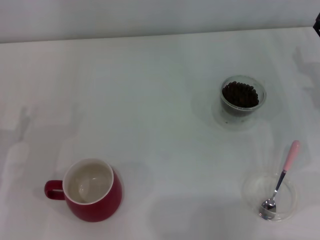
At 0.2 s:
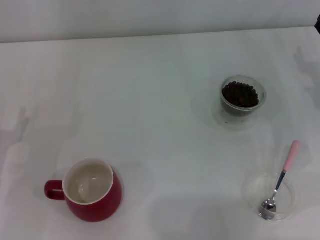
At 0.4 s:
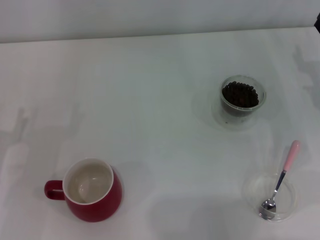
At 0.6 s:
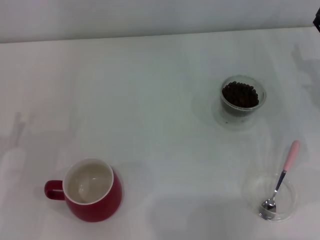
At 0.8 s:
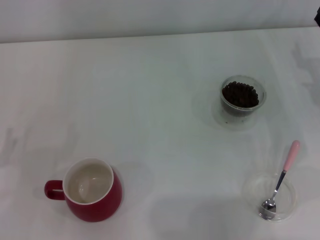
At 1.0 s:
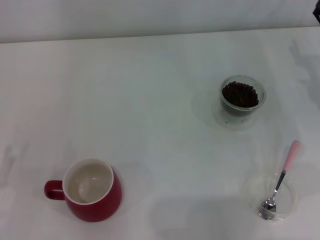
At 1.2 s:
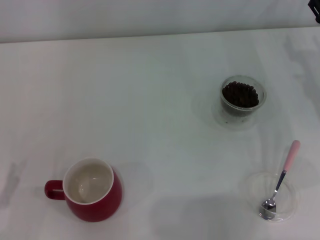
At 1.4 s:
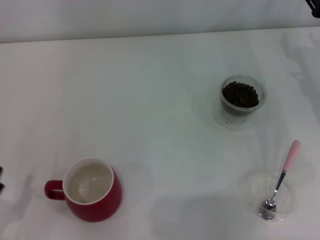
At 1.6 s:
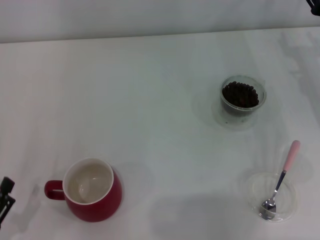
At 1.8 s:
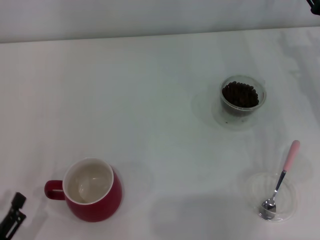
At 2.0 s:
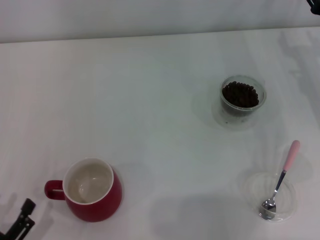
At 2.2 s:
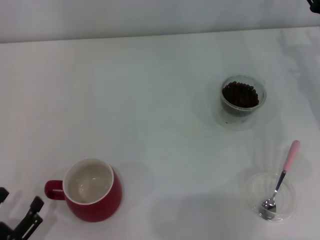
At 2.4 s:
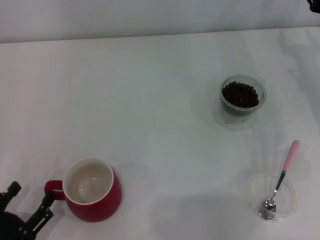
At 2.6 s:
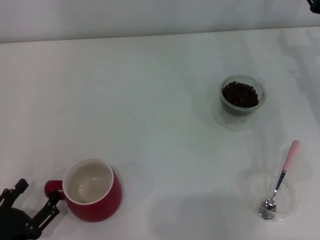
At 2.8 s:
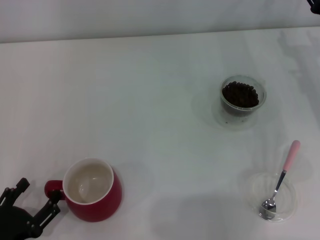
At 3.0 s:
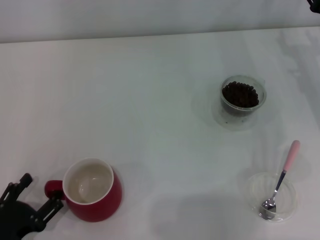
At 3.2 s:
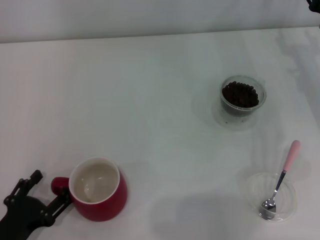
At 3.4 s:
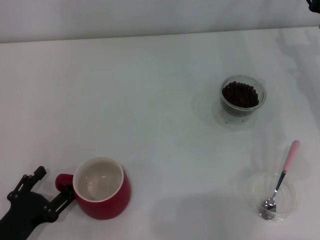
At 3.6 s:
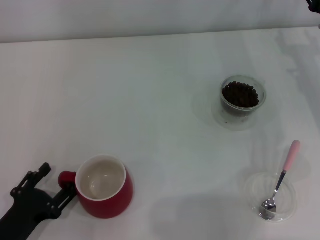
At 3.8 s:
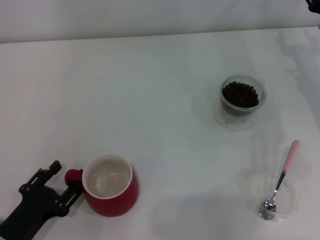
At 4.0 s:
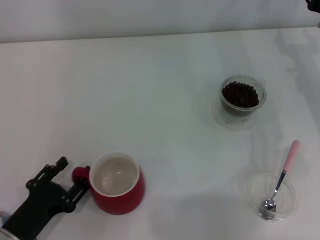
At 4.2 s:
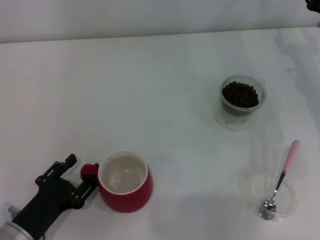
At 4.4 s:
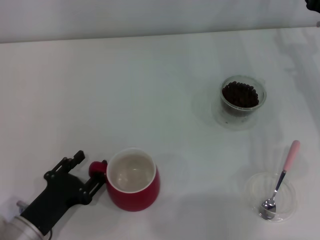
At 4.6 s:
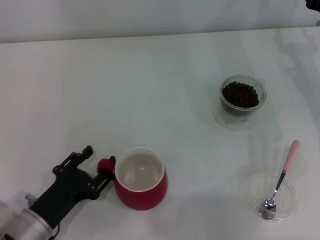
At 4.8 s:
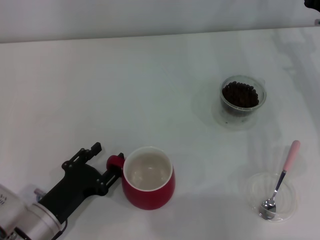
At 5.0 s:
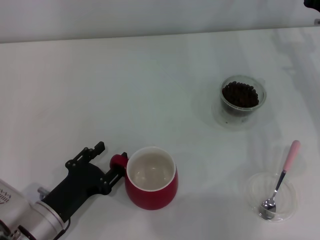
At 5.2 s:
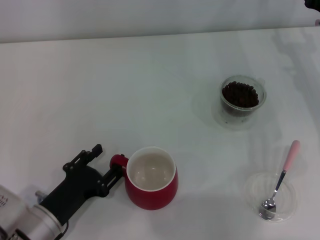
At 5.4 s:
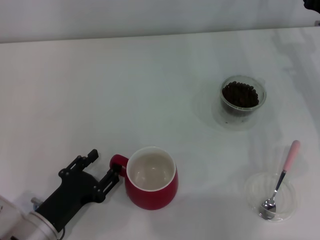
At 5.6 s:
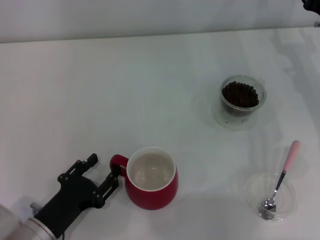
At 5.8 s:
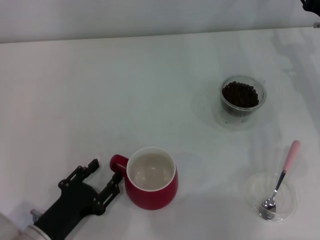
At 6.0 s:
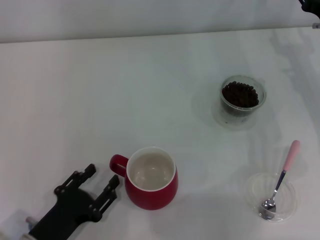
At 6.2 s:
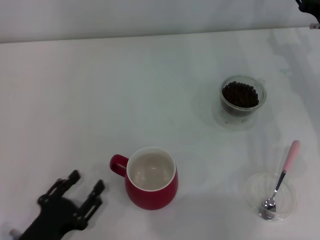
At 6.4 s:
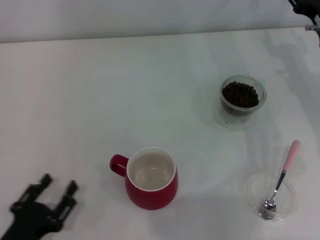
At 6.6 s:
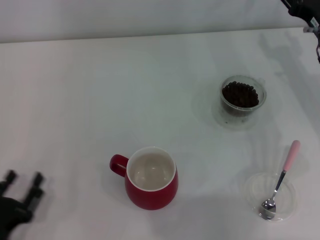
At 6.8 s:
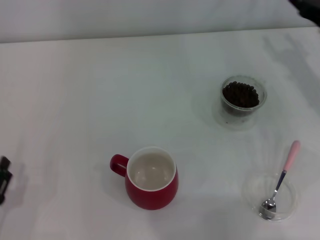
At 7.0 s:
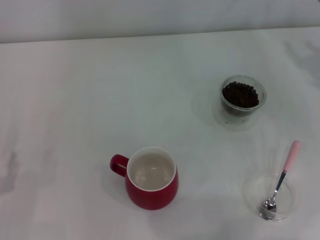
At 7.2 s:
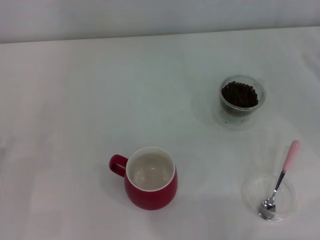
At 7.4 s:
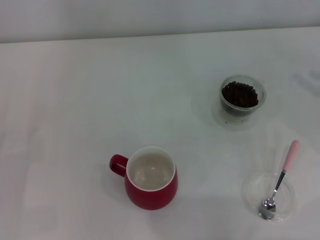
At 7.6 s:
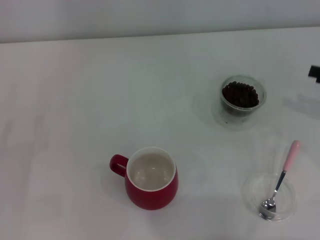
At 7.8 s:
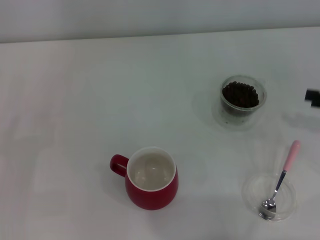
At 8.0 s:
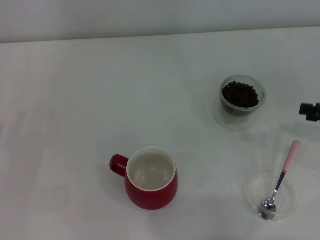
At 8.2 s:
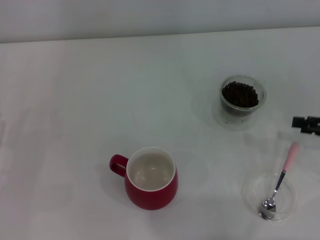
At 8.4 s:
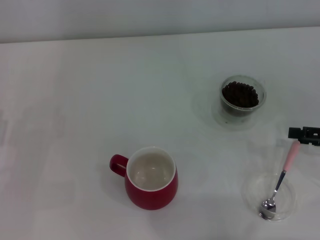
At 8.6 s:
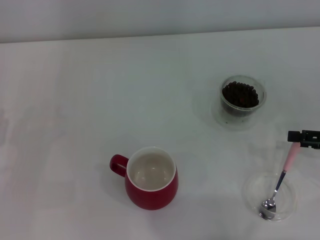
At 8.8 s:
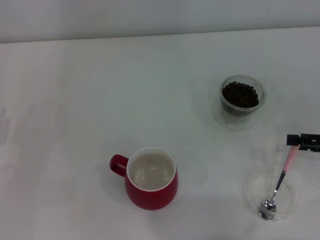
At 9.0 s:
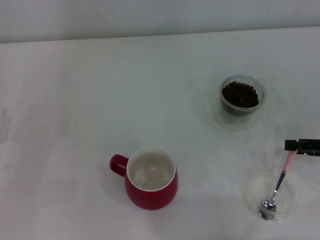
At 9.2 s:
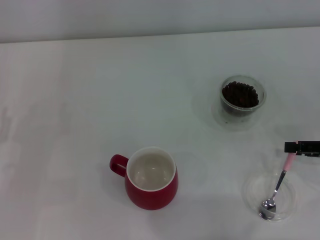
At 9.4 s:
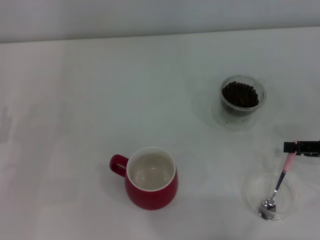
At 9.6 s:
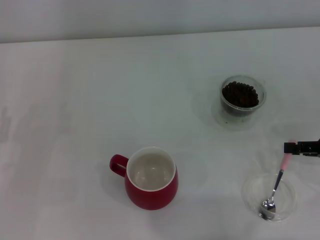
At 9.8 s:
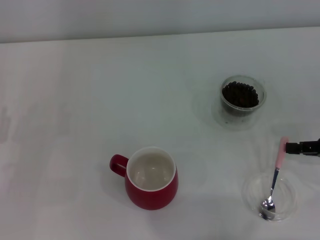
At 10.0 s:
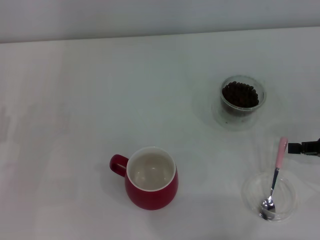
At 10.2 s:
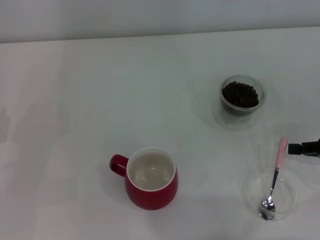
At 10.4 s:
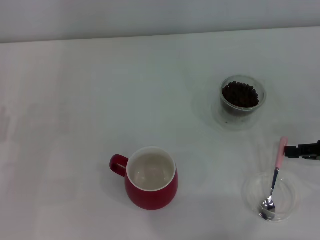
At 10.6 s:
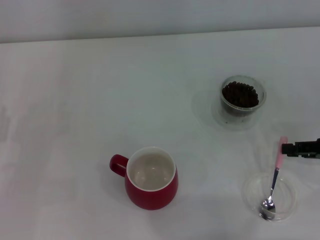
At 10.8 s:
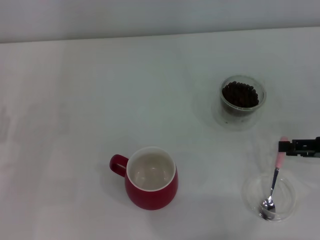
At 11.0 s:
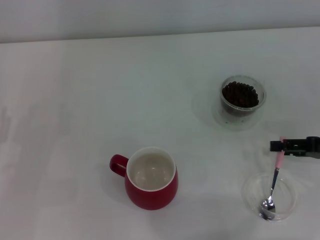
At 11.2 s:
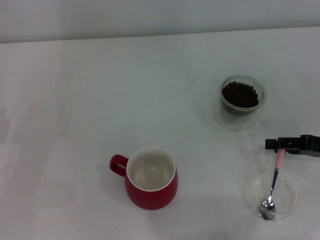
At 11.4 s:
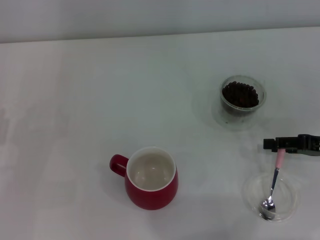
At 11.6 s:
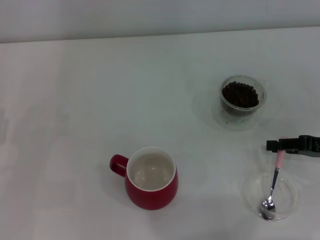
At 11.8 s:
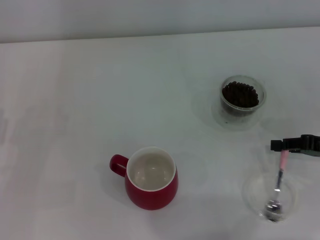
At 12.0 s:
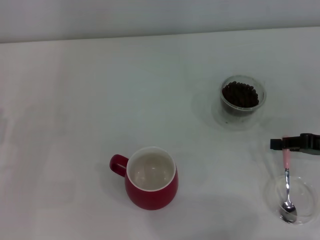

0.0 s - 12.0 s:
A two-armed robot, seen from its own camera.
Task of the whole recording: Use a pink spoon to take out the coffee beans from the glass and pour them into the red cup.
Step, 0.0 s - 6.0 s: Move the cup to the center of view with the left gripper.
0.0 s - 1.6 s: The left gripper shifts roughly 15 cm backward.
1.6 s - 3.0 s: The grippers make only small movements.
3.0 s - 4.4 s: The left gripper goes approximately 5 cm to the right, and closes.
4.4 s - 6.0 s: There are only small adjustments of the grippers.
6.0 s - 7.6 s: The right gripper goes approximately 15 cm backward and to the right. Meanwhile the left gripper heads to the left and forward, covering some 15 cm.
7.6 s - 9.0 s: The right gripper changes place by some 5 cm.
9.0 s - 10.4 s: The right gripper closes up.
10.4 s - 12.0 s: The right gripper opens, then closes once more.

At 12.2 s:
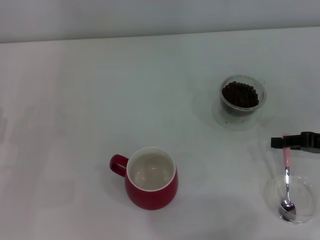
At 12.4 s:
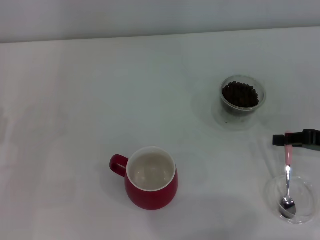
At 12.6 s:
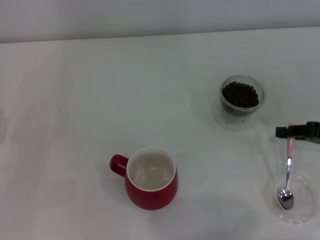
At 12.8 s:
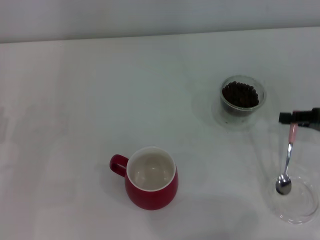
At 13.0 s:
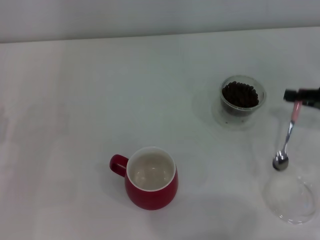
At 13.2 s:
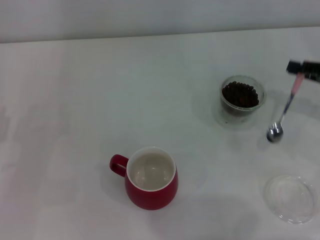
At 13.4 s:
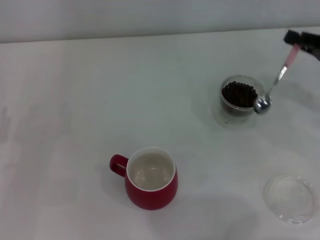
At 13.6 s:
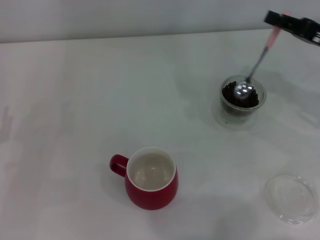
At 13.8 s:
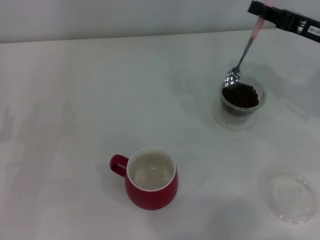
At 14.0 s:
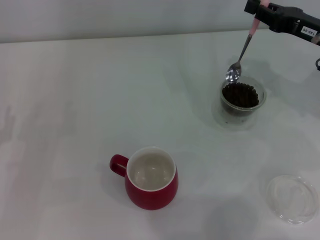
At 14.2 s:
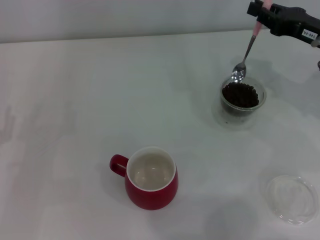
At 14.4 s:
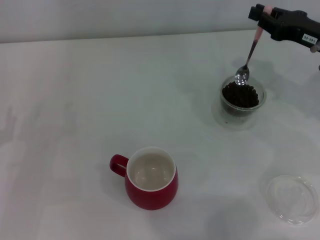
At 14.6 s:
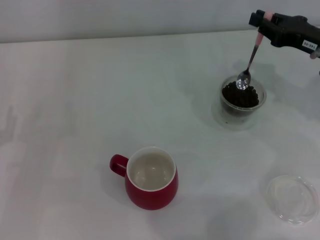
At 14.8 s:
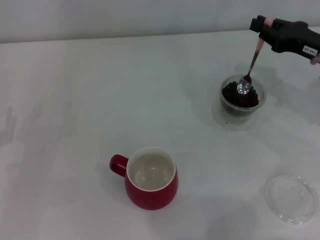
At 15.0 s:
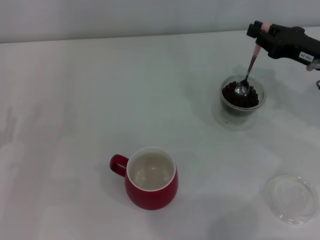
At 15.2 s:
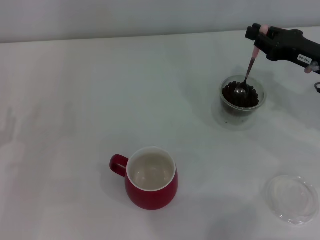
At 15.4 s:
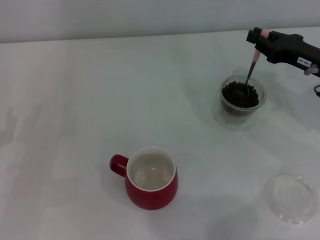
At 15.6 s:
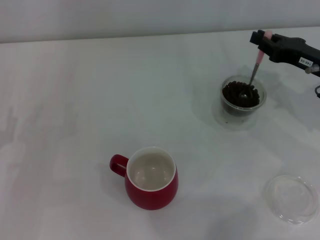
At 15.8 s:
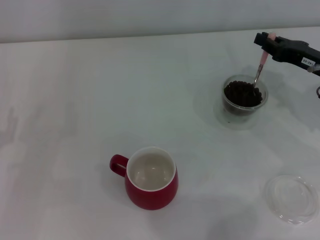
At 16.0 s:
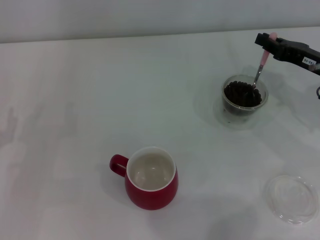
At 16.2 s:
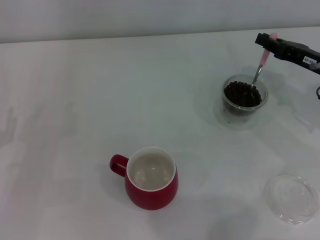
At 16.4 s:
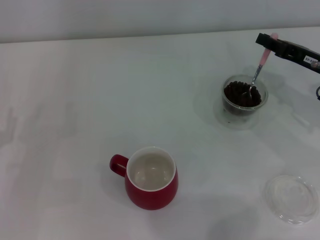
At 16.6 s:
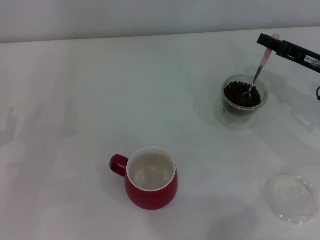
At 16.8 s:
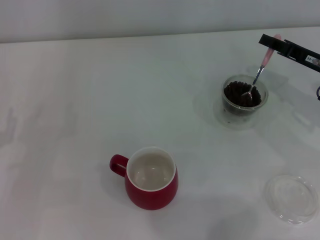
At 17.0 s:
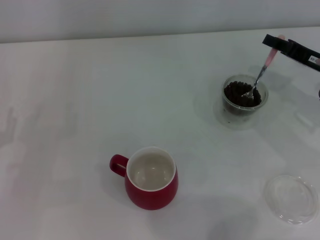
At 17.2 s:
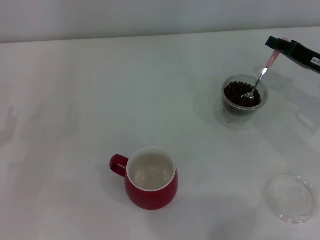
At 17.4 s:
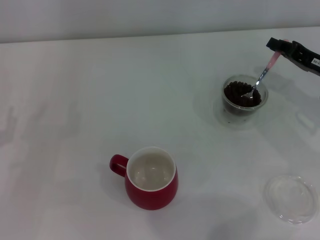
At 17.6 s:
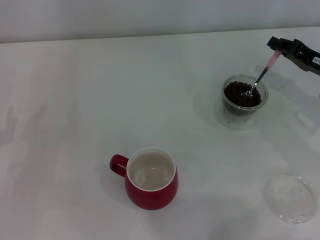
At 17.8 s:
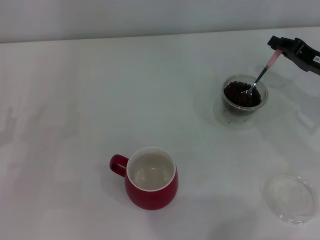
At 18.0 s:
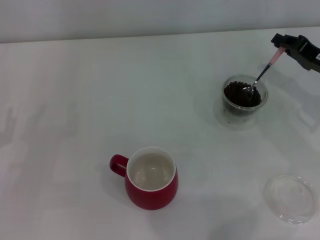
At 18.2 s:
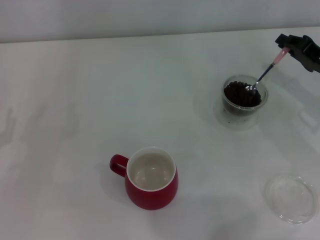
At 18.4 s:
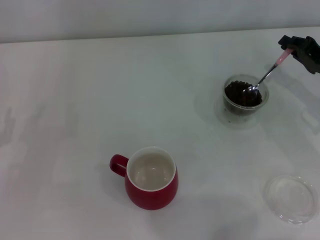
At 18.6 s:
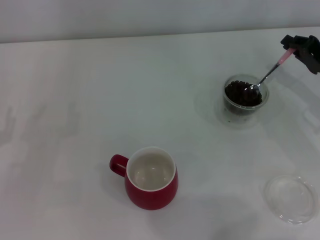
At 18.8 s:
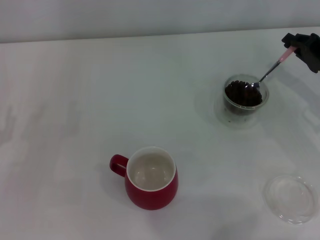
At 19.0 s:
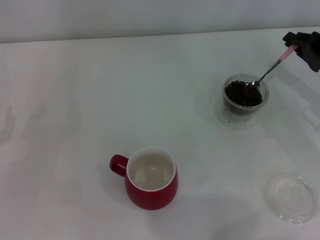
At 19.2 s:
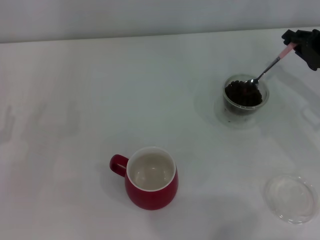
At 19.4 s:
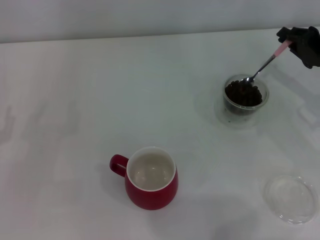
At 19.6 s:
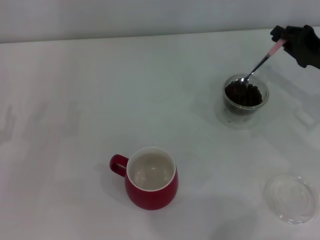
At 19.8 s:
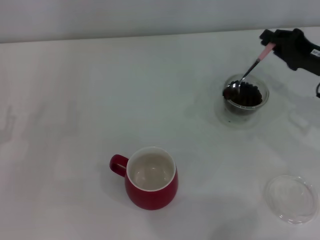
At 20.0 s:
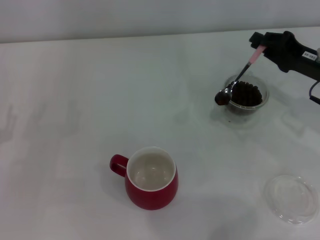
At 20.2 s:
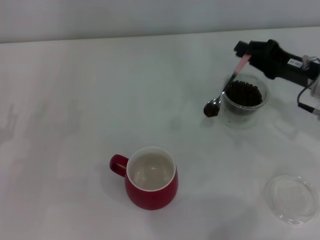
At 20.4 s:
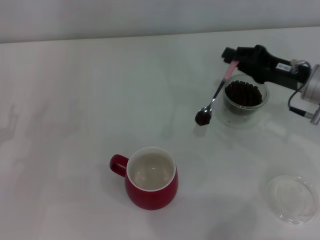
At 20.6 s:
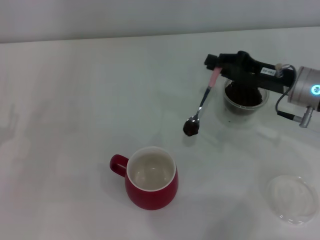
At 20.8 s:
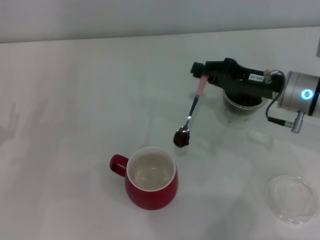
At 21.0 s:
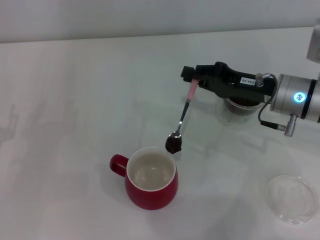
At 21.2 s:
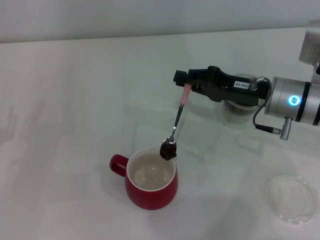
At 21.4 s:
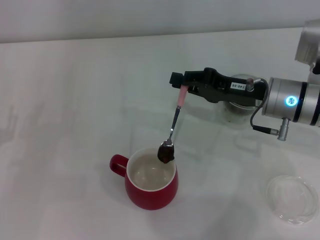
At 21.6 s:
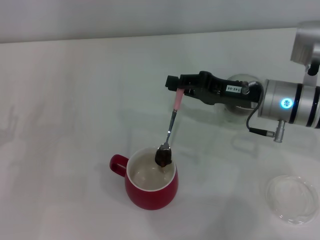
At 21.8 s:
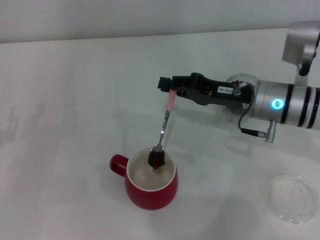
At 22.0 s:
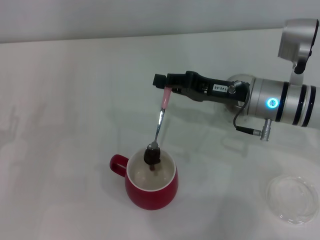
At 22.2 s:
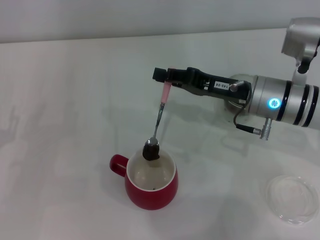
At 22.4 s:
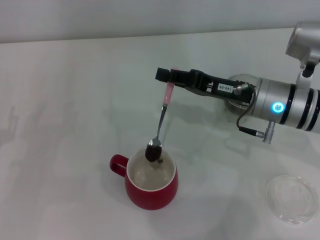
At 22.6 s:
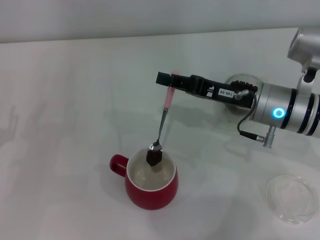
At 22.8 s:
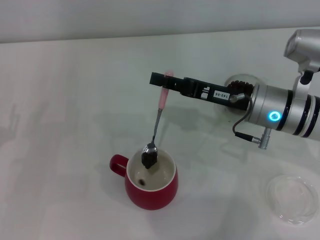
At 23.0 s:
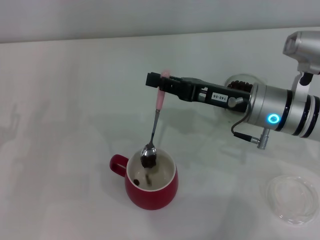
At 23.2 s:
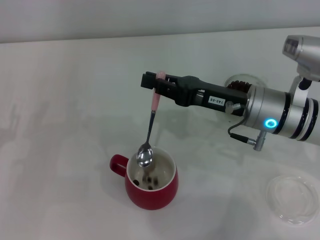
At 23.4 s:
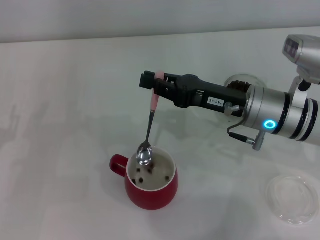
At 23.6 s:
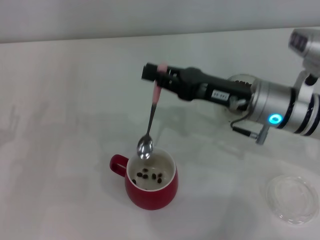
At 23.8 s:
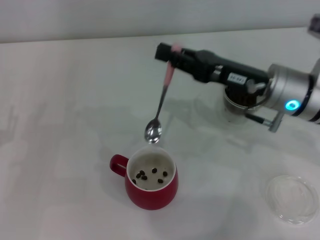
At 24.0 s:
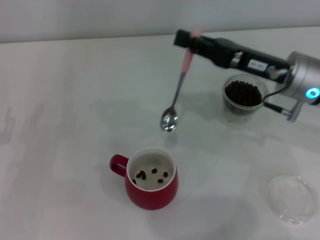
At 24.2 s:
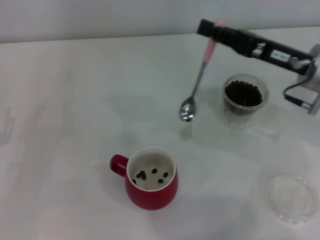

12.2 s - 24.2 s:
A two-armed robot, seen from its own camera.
Task of the whole recording: Use a pink spoon to take out the coffee beans from the glass and pour them into the red cup.
Step, 13.0 s - 23.4 s: Scoop a spoonful of beans into the cup with the right gripper.
12.2 s - 13.8 s: The right gripper heads forward, upward and to the left, covering roughly 15 cm.
13.8 s - 15.2 s: There are only small adjustments of the grippers.
18.2 s - 19.8 s: The grippers move only a little.
19.8 s - 21.2 s: The right gripper shifts roughly 10 cm to the left.
21.2 s - 22.6 s: The grippers move only a little.
22.6 s - 24.2 s: The right gripper heads to the right, covering some 5 cm.
